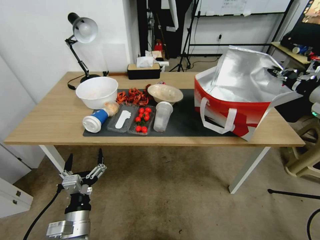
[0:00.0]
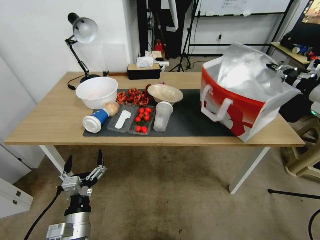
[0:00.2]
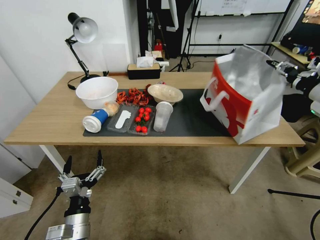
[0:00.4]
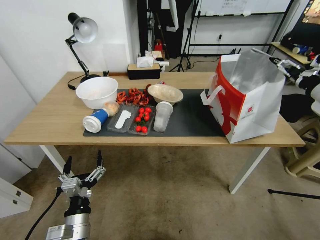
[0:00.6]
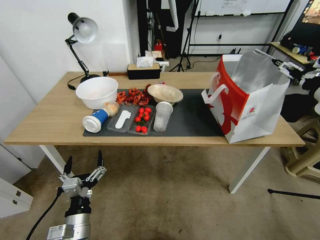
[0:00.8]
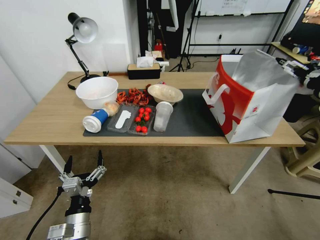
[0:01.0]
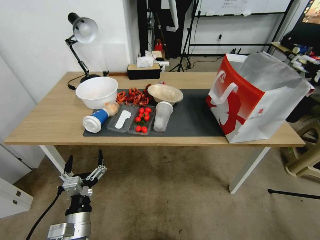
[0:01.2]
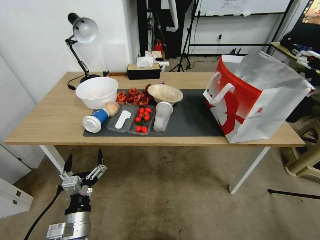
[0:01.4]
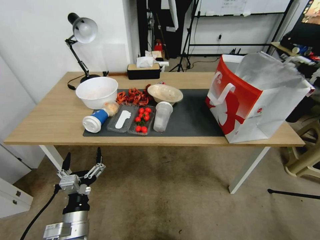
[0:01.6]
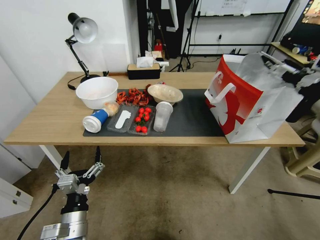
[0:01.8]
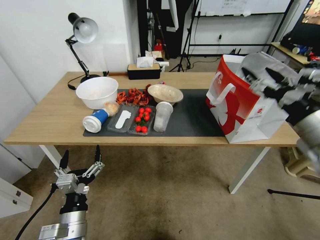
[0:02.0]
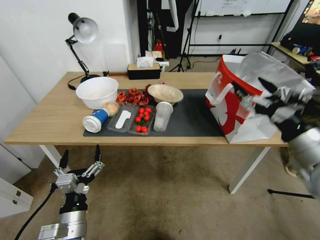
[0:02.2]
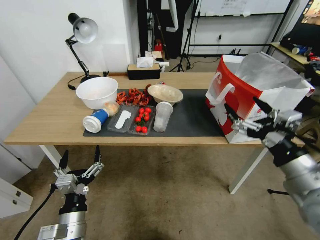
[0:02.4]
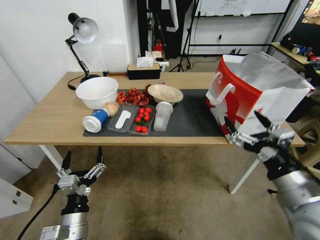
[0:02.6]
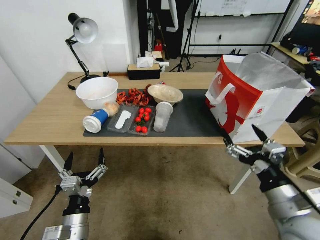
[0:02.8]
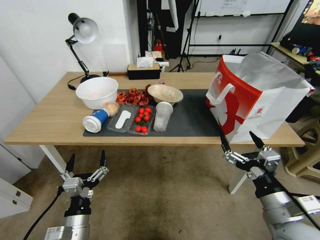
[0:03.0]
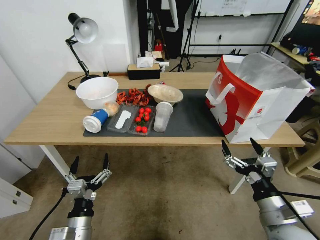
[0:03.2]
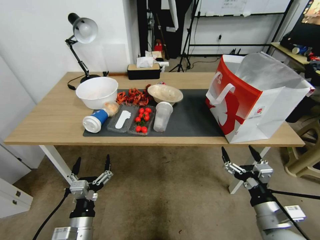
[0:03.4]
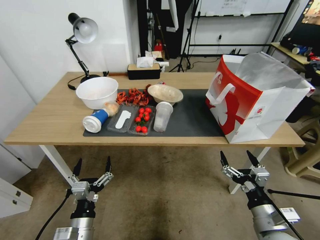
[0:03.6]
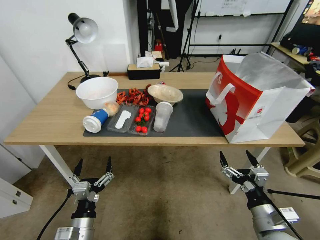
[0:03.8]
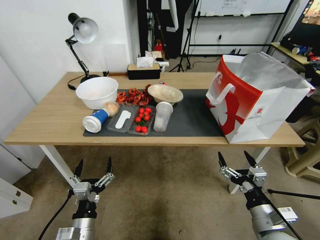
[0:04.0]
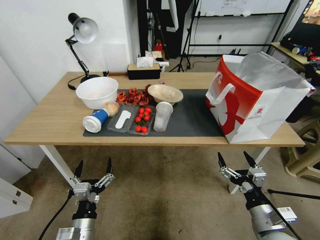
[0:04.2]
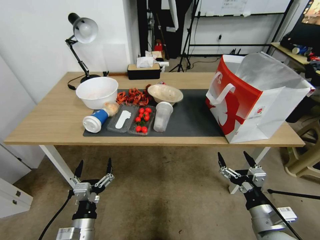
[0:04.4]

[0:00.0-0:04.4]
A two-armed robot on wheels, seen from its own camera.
Task of the whole recording: Pick up the food delivery bag from the floor and place it on the table.
0:00.0 to 0:01.4: The right gripper changes place by some 5 cm, and opens up.
0:01.4 to 0:03.0: The right gripper heads downward, backward and to the left, covering about 35 cm.
0:03.0 to 0:04.4: The right gripper is displaced downward by some 10 cm.

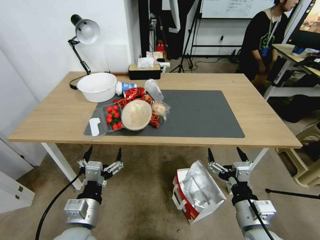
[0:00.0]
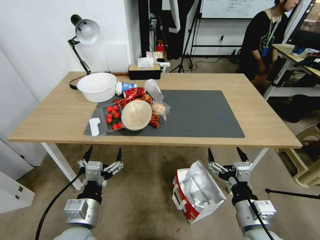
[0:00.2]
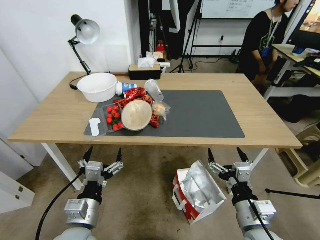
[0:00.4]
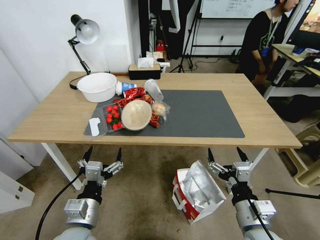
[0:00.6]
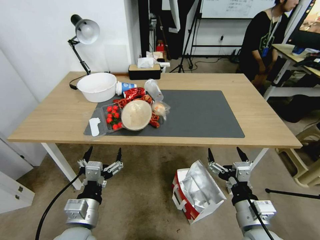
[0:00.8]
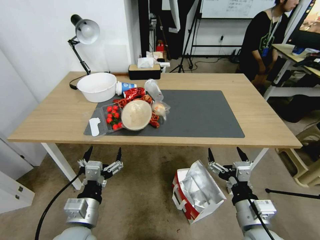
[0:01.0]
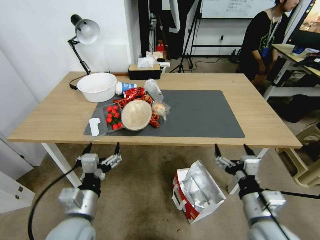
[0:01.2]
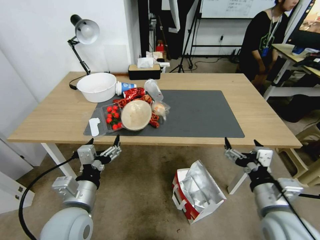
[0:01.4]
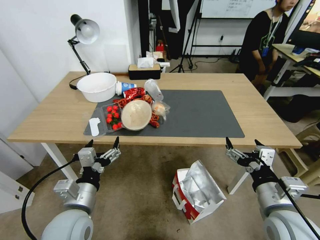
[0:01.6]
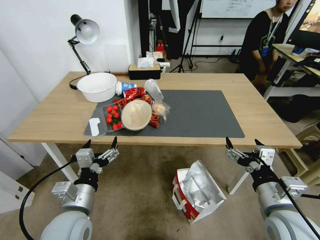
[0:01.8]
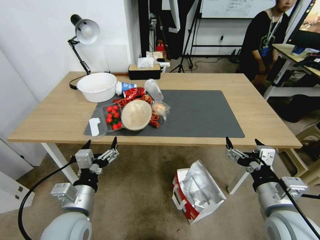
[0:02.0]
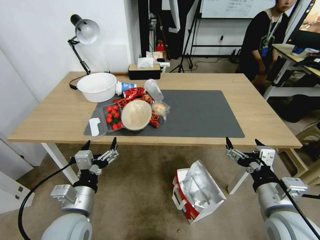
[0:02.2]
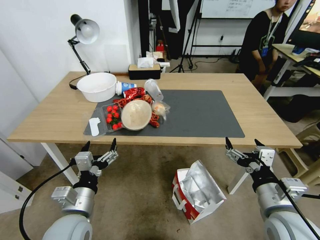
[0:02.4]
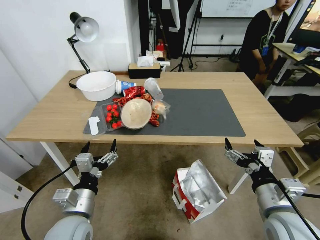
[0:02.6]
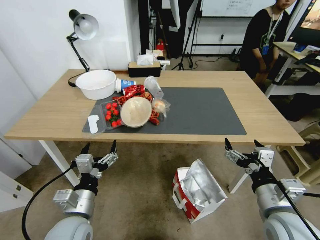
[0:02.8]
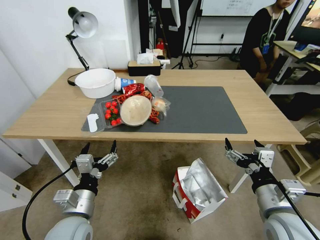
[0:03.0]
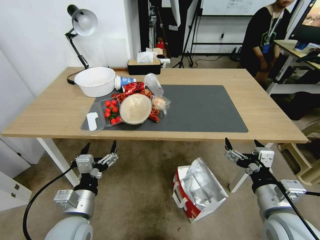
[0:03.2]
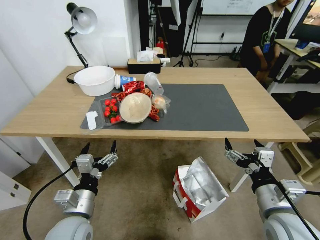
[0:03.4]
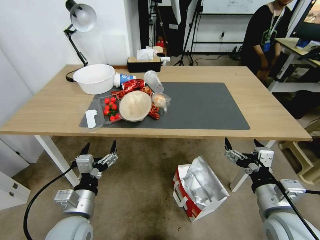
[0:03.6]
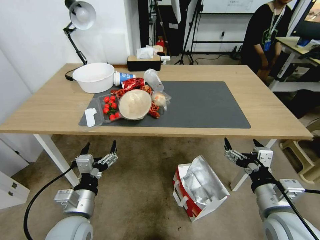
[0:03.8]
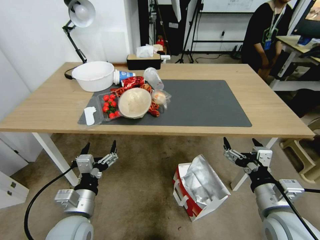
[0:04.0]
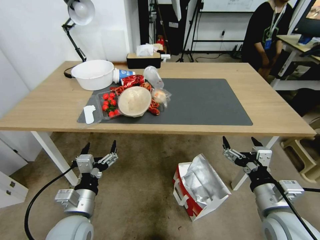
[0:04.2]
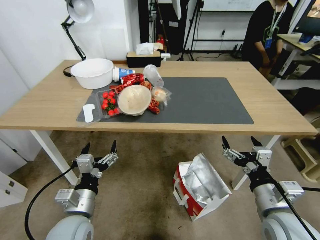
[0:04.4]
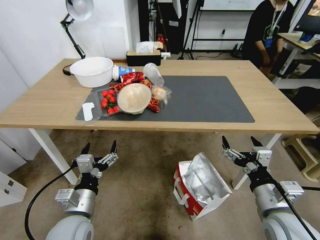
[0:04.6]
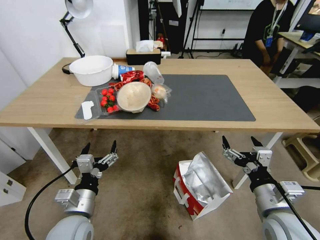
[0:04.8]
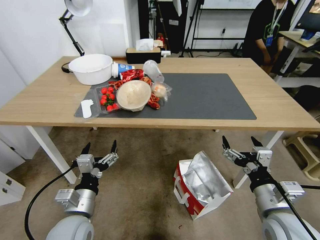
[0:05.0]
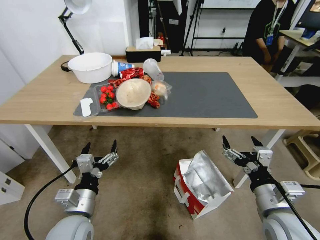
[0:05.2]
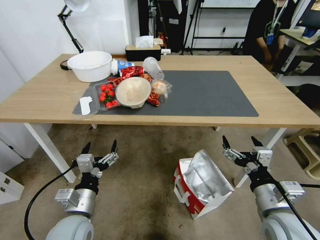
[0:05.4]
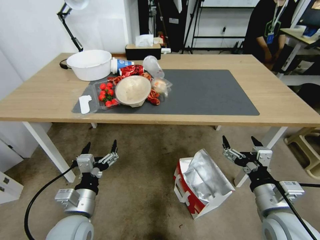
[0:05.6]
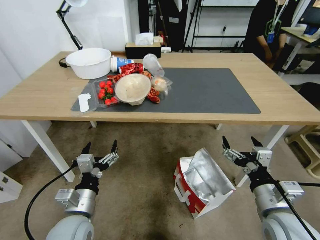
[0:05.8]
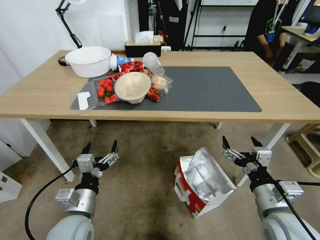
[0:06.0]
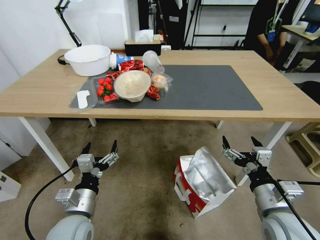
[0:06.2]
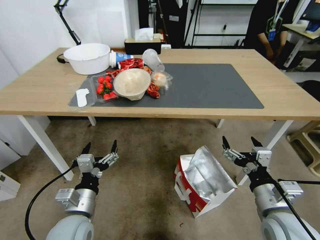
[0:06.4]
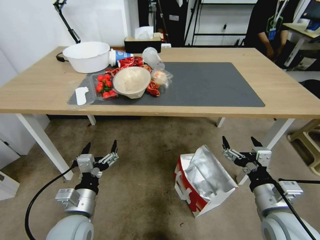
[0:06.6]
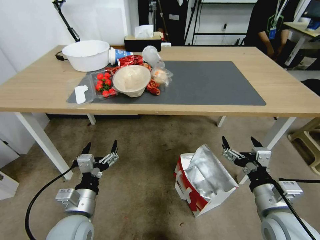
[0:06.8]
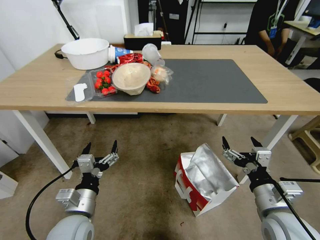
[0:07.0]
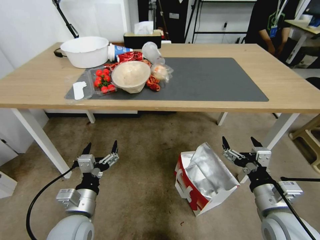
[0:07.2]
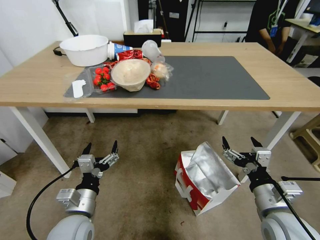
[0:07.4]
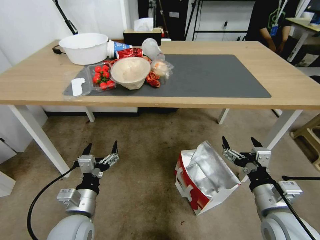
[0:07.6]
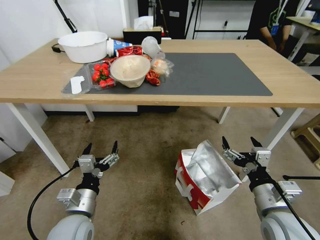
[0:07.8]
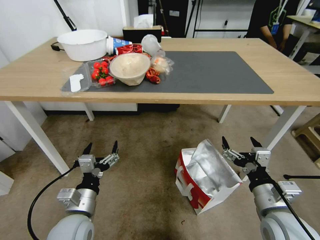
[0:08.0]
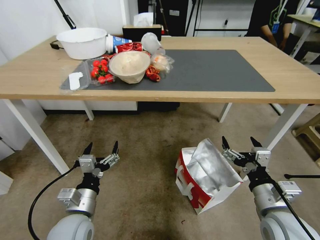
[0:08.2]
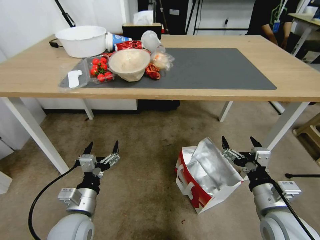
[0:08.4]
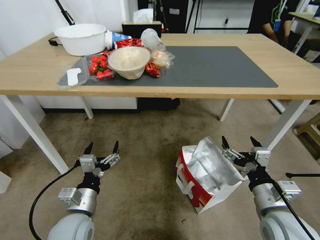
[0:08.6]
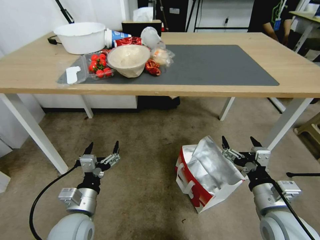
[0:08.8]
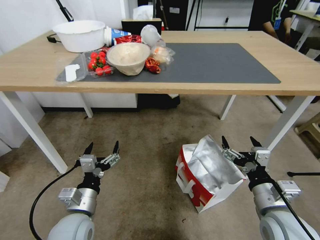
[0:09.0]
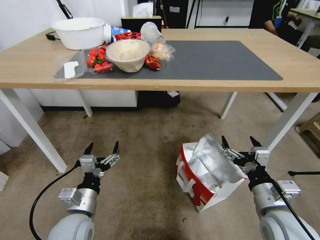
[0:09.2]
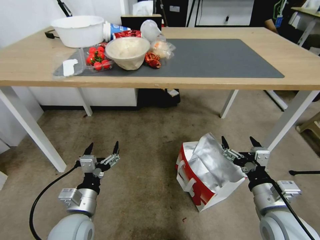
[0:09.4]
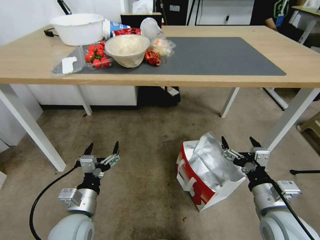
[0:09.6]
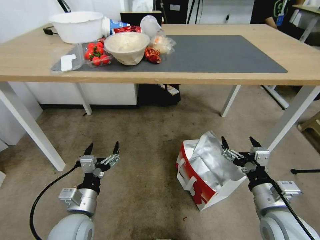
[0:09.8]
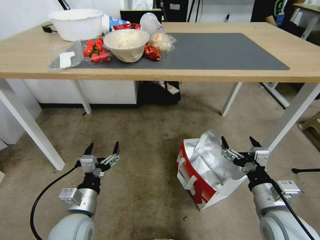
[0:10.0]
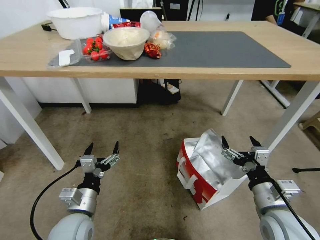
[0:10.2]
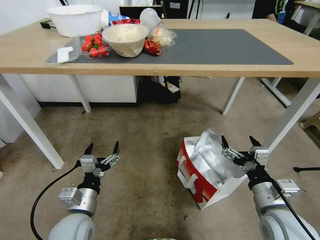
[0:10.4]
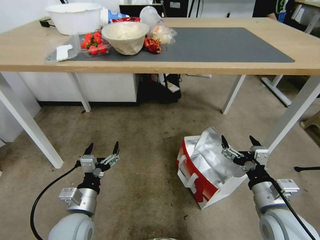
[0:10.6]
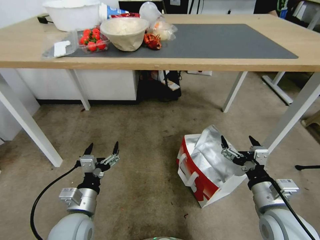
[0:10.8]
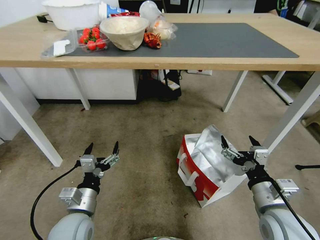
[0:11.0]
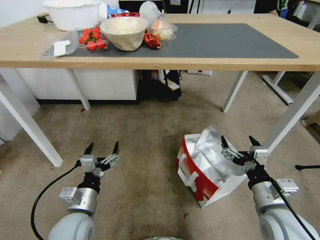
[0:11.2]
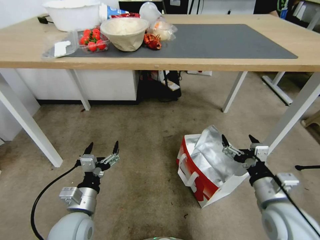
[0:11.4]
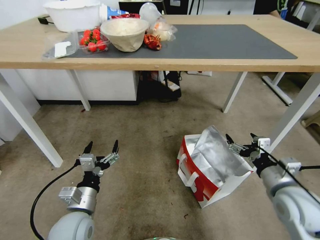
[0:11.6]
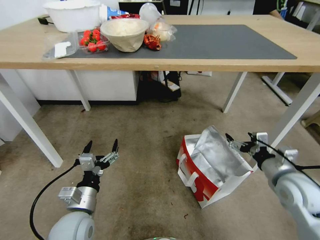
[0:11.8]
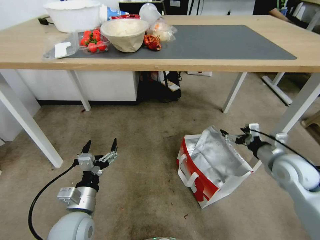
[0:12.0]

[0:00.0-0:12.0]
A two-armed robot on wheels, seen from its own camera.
Task of the whole recording: Pick up the food delivery bag from the floor and place it on the table.
0:10.4 to 0:12.0: The right gripper is displaced forward and to the right by about 15 cm.

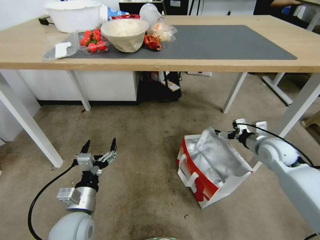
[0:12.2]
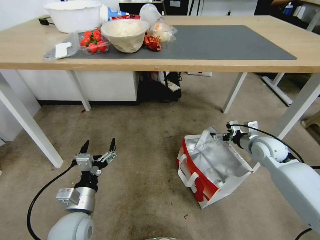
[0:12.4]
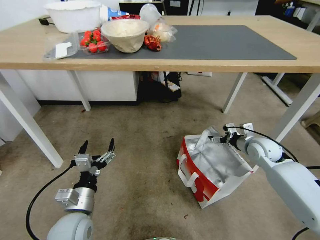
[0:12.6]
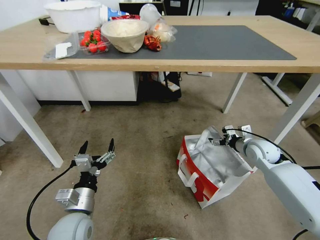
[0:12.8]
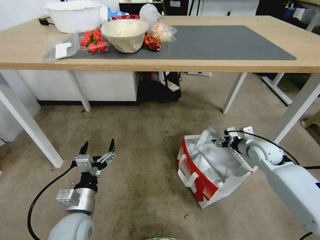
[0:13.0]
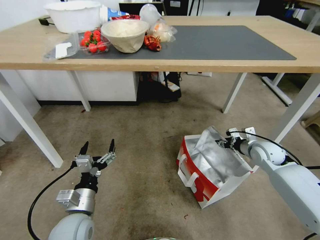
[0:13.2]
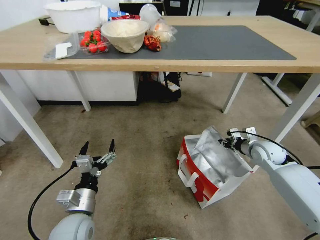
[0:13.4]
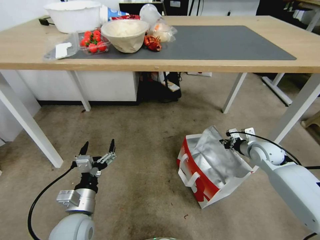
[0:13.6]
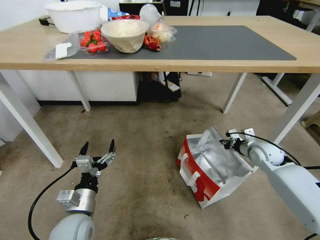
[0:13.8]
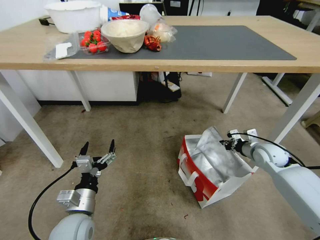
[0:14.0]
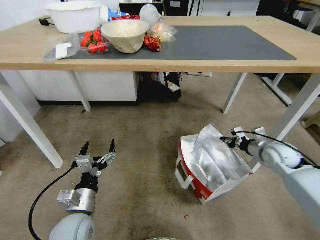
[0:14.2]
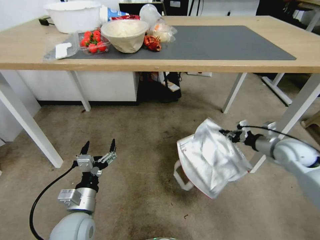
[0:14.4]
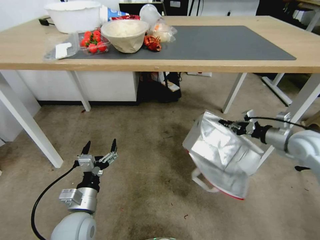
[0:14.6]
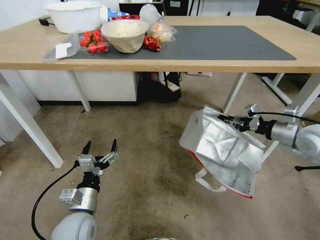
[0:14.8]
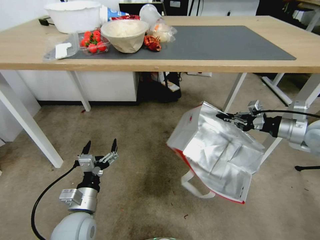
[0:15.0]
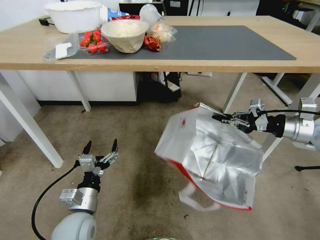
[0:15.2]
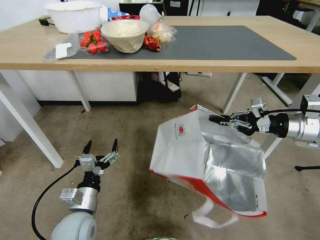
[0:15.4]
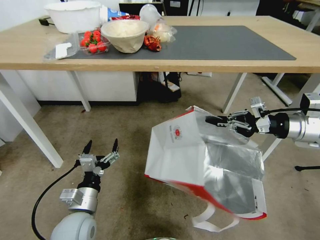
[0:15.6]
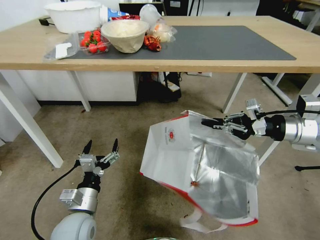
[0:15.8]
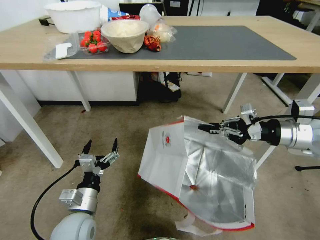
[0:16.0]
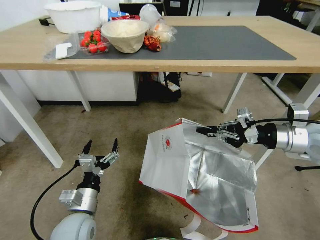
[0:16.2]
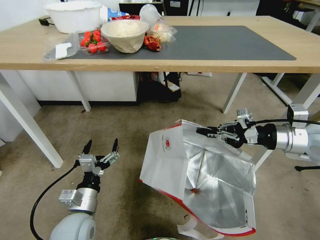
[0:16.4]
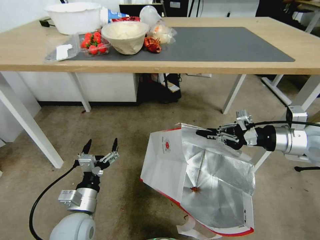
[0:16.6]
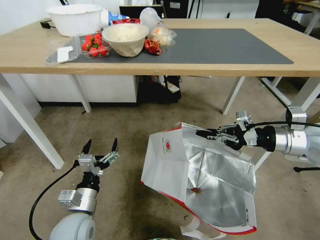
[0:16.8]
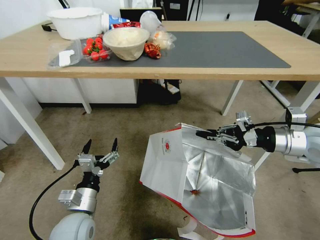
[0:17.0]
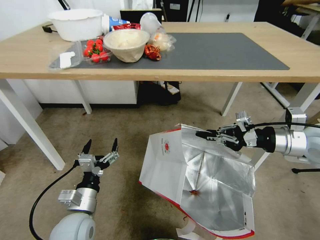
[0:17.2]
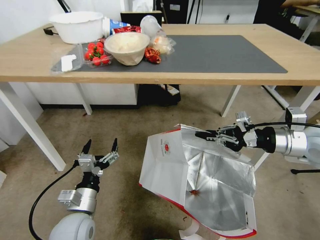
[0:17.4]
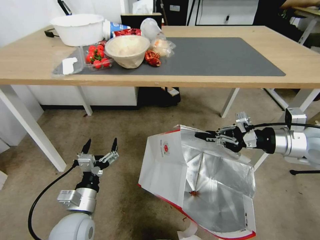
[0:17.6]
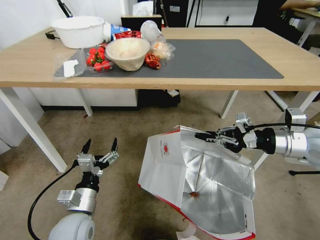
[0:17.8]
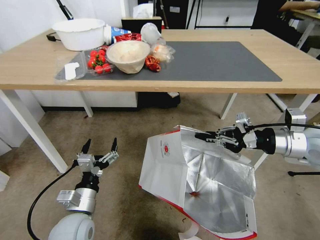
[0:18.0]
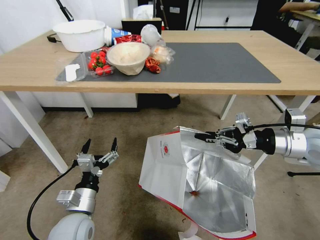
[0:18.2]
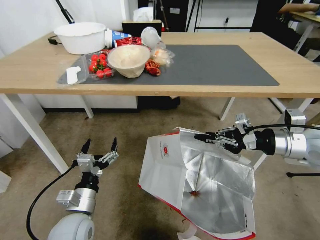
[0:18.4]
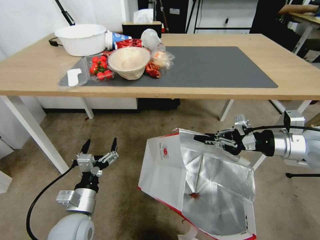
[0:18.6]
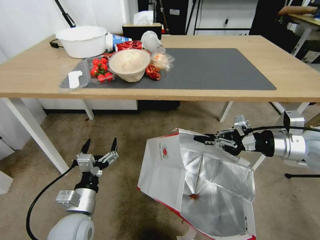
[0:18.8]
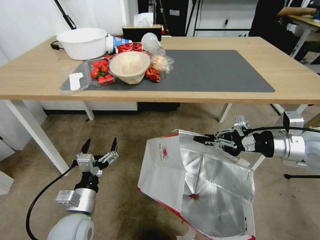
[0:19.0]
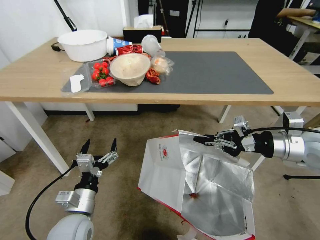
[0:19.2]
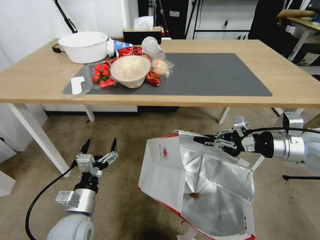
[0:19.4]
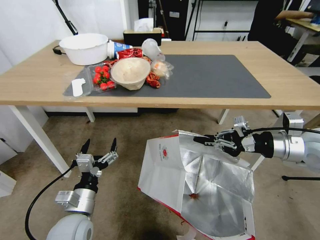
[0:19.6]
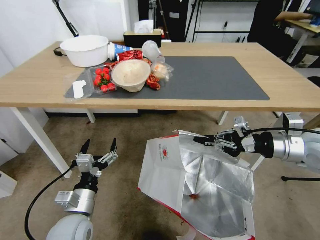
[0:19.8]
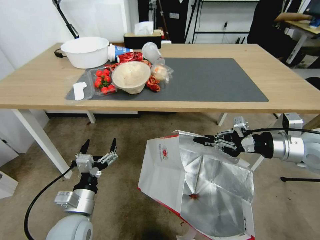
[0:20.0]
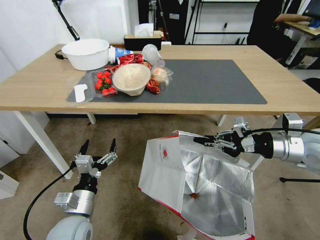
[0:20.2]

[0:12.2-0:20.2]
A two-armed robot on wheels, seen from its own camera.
Task of the whole recording: Pick up the food delivery bag from the floor and place it on the table.
0:12.2 to 0:13.8: The right gripper shifts roughly 5 cm downward, and closes.
0:13.8 to 0:15.4: The right gripper travels upward by approximately 20 cm.
0:15.4 to 0:17.0: The right gripper shifts by roughly 5 cm.
